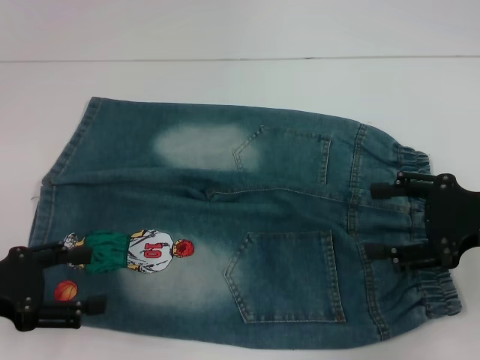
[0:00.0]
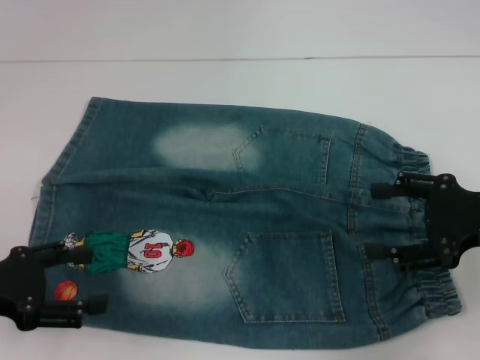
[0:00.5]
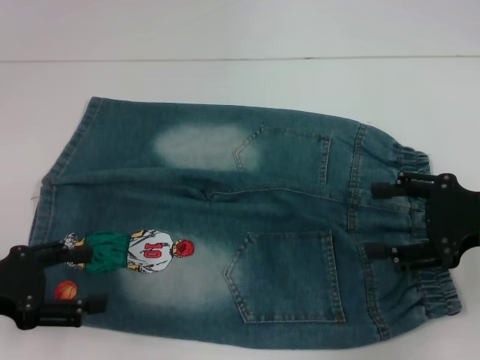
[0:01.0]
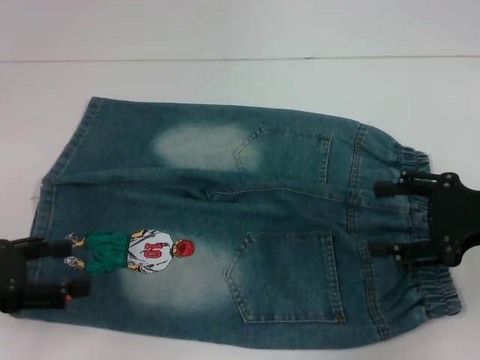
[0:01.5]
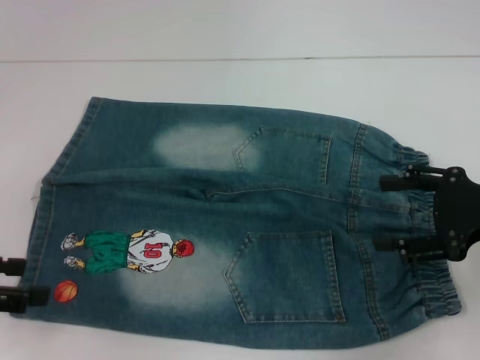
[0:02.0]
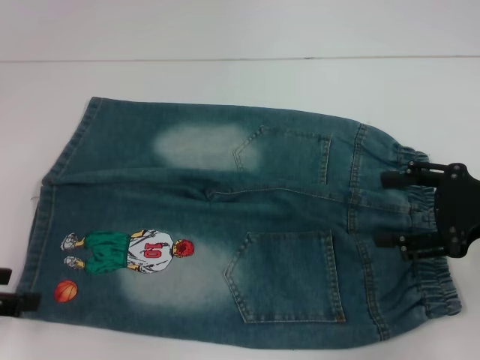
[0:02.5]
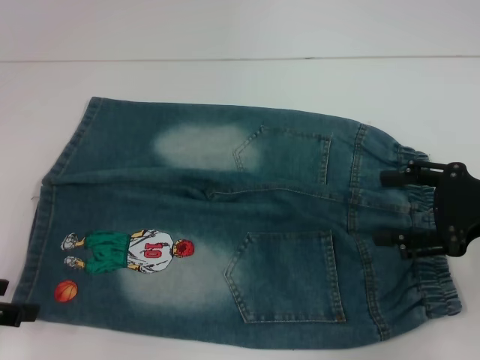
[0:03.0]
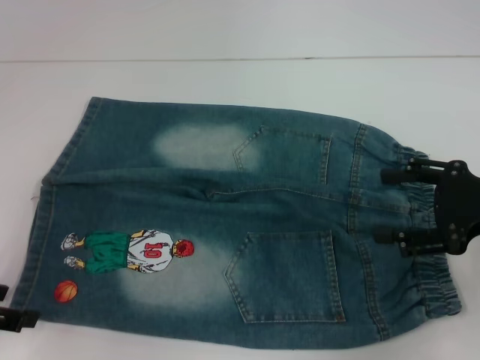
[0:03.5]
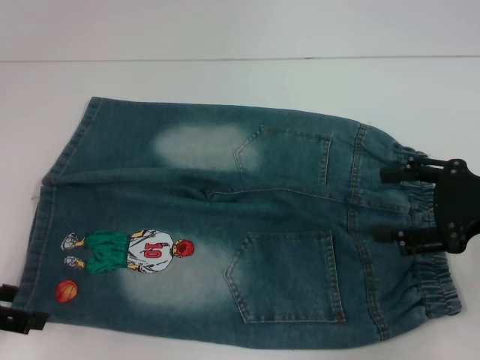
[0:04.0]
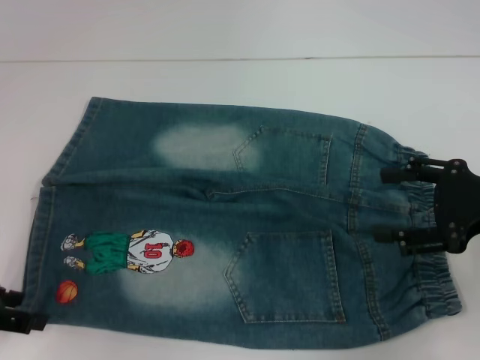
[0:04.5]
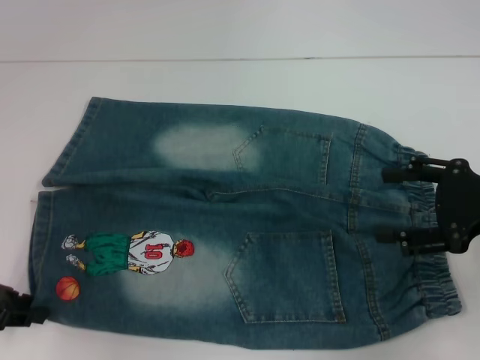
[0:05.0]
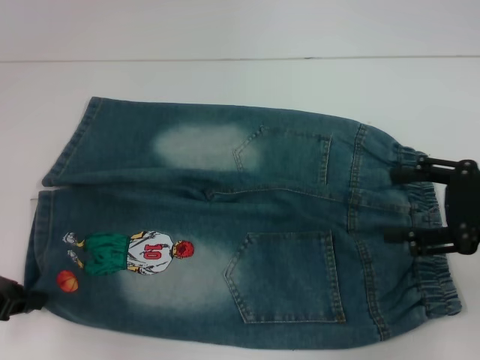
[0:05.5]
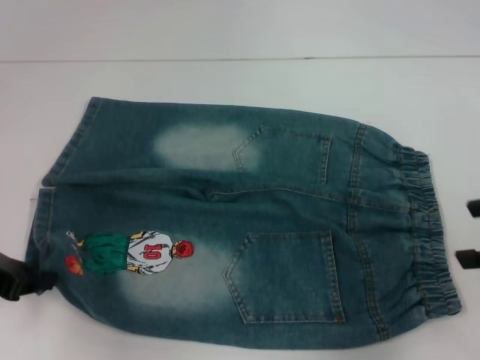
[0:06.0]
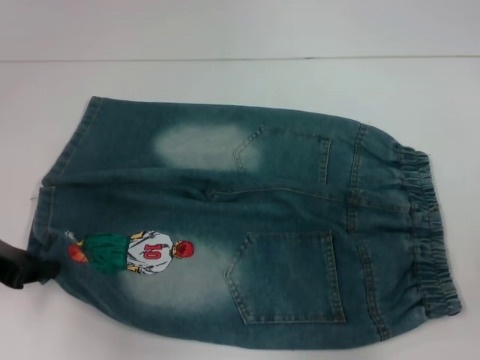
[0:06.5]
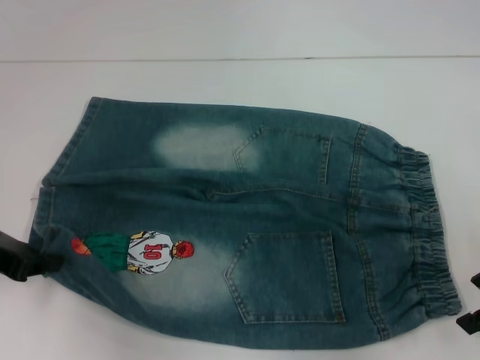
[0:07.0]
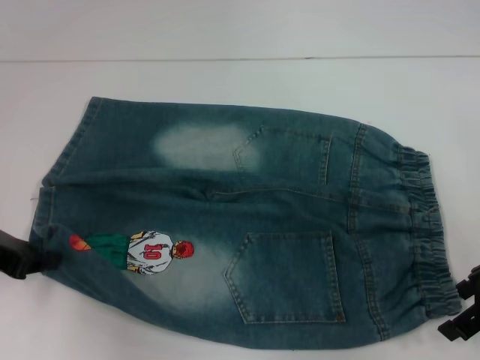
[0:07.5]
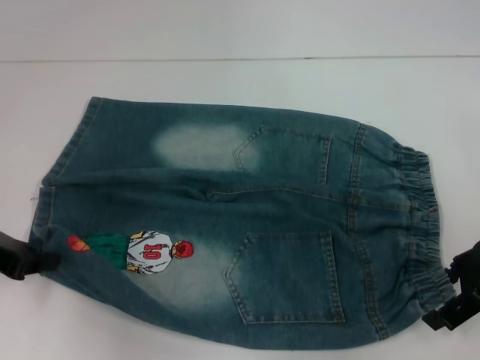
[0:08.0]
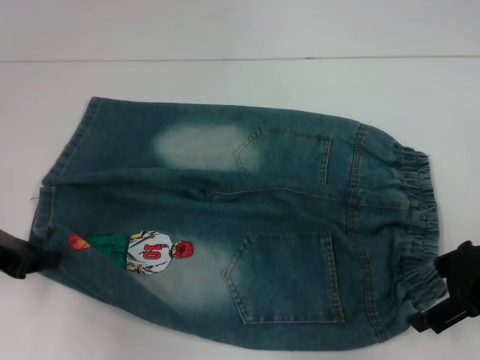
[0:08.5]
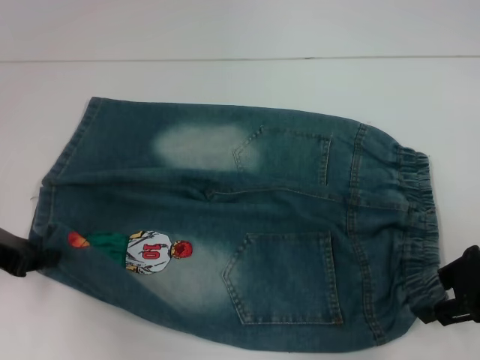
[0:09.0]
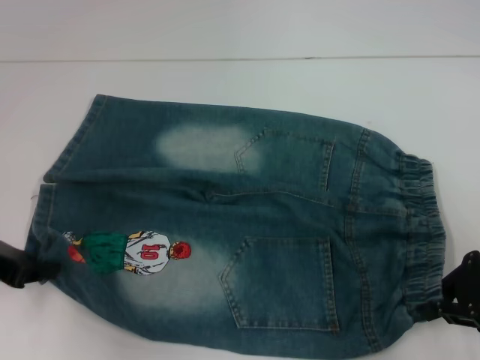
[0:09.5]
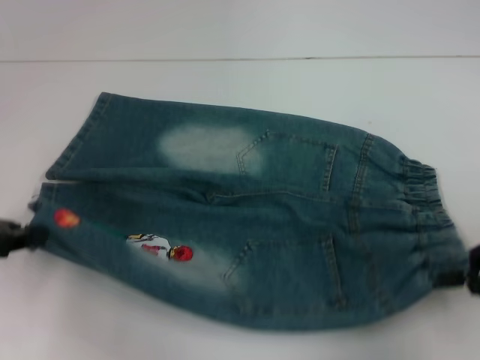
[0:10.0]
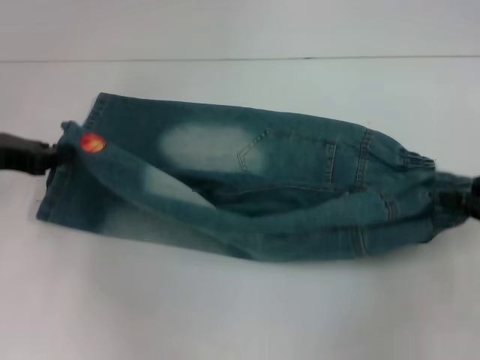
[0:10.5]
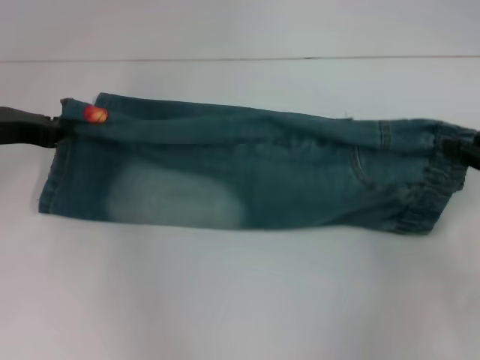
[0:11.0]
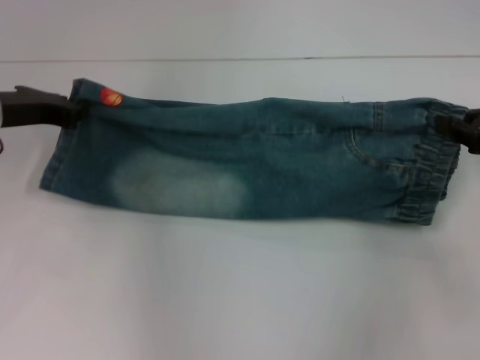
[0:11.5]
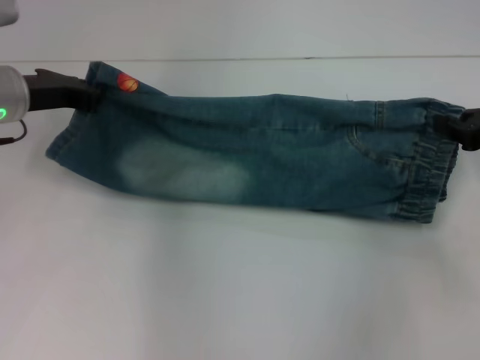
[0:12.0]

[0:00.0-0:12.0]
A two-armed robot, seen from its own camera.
Step, 0:00.0 to 0:04.5: Grab the lower left pant leg with your left hand.
Step, 0:05.0 to 0:09.0: Grab the lower right pant leg with your right hand.
0:00.0 to 0:02.0: The left gripper shifts by roughly 5 cm.
0:02.0 to 0:04.0: There are only small adjustments of the grippers.
0:04.0 to 0:06.0: The right gripper ends up about 5 cm from where it was. The left gripper closes.
0:06.0 to 0:08.0: The right gripper shifts some 5 cm to the left.
0:08.0 to 0:10.0: The right gripper shifts by some 5 cm, and closes up.
0:10.0 to 0:12.0: The left gripper travels forward and to the right by about 15 cm; the right gripper heads forward, covering roughly 10 cm.

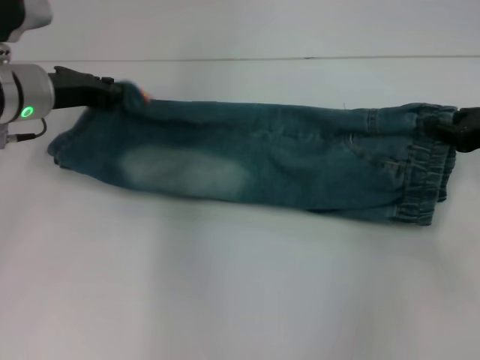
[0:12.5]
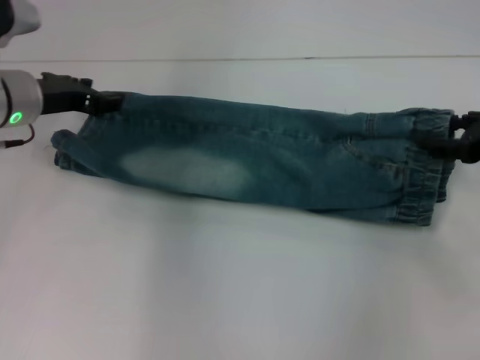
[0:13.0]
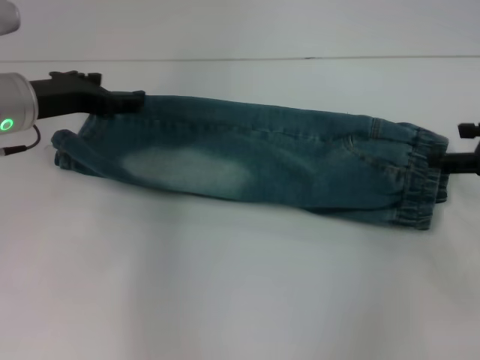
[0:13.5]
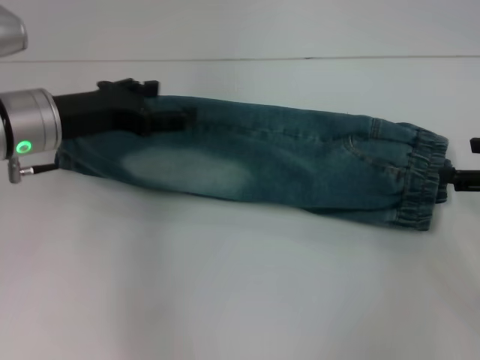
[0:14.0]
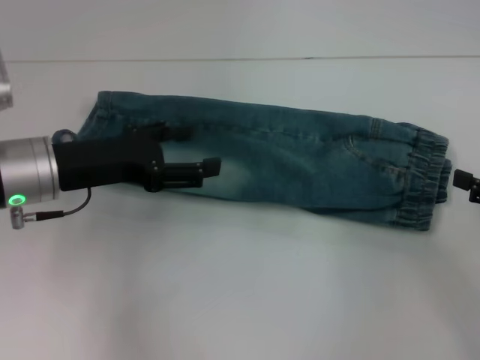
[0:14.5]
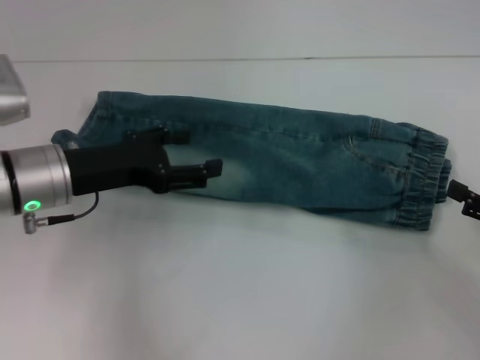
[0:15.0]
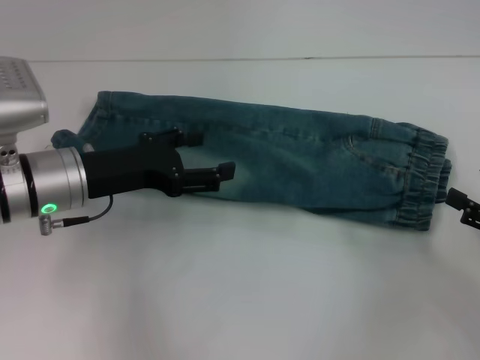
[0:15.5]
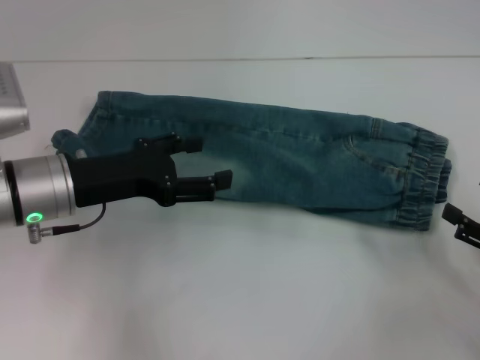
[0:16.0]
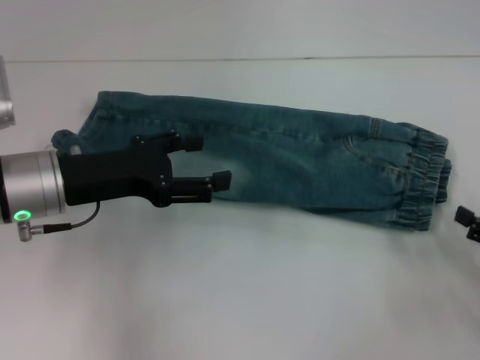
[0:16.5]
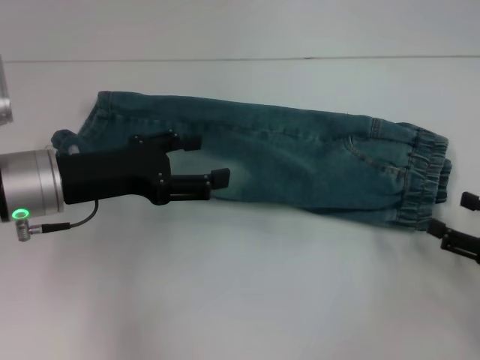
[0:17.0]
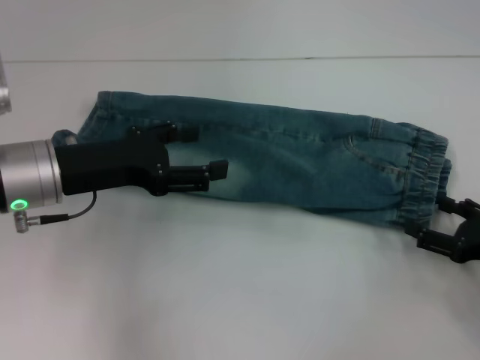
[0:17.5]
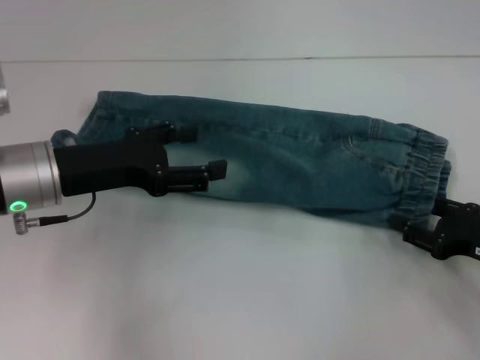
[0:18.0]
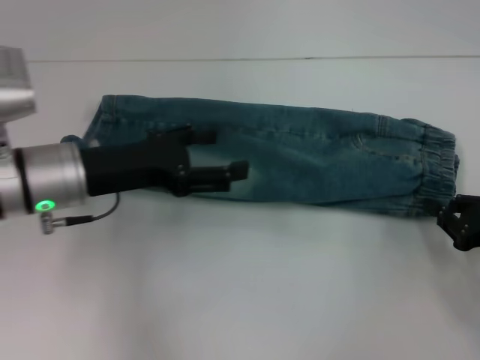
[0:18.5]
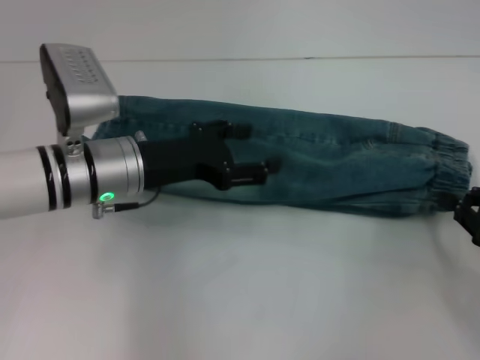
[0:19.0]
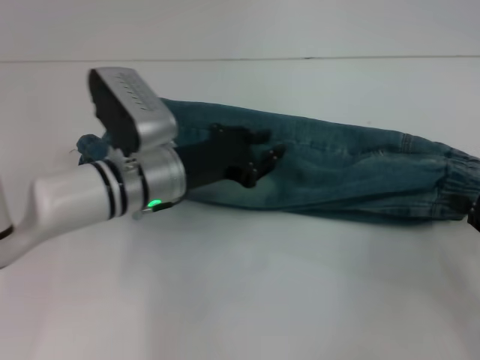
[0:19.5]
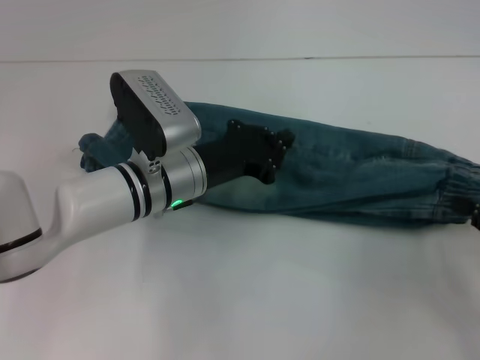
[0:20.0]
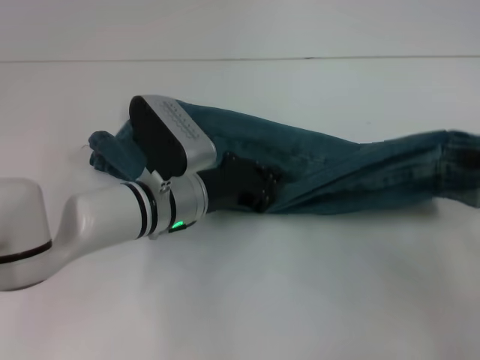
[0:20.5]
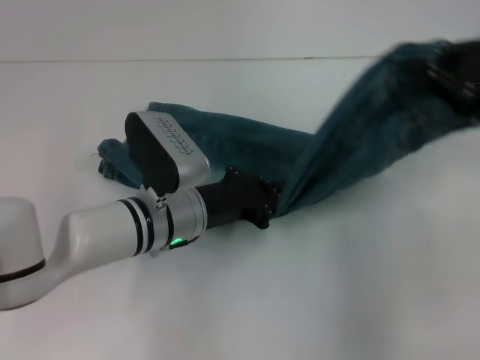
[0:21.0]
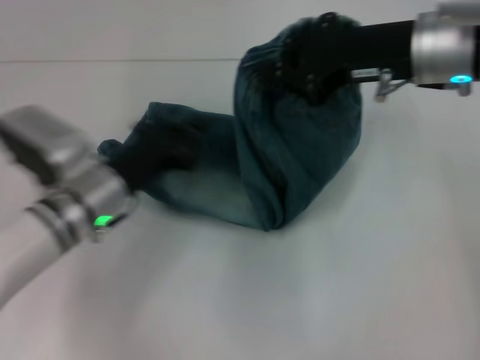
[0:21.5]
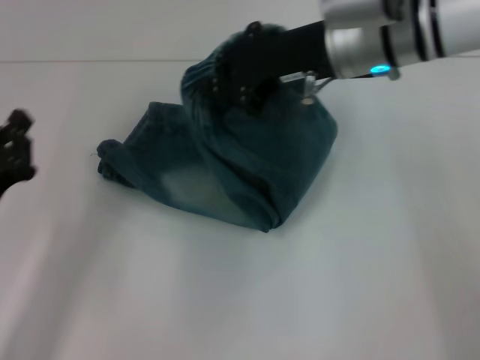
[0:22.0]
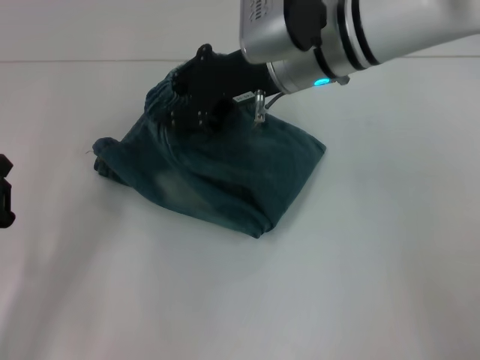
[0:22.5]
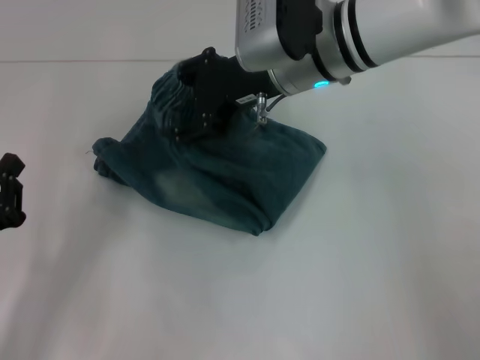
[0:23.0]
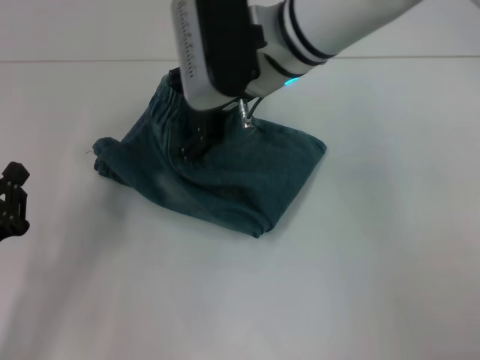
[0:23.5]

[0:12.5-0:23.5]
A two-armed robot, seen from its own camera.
Step, 0:14.0 to 0:18.0: Grab the waistband with your right hand.
Step, 0:18.5 to 0:21.0: Press the middle of the pants with your left hand.
0:12.5 to 0:14.5: Both grippers move backward, some 10 cm. The left gripper opens up; the right gripper opens up.
0:14.5 to 0:16.0: The right gripper goes some 5 cm downward.
0:16.0 to 0:18.0: The right gripper shifts by approximately 5 cm.
0:18.0 to 0:20.0: The right gripper heads upward, covering about 5 cm, and closes up, while the left gripper travels to the right and downward by some 15 cm, and closes.
0:20.0 to 0:21.5: The left gripper shifts approximately 5 cm to the left; the right gripper travels to the left, forward and upward by about 25 cm.
0:21.5 to 0:23.5: The left gripper moves to the left and backward, some 15 cm; the right gripper travels to the left by approximately 15 cm, and opens.

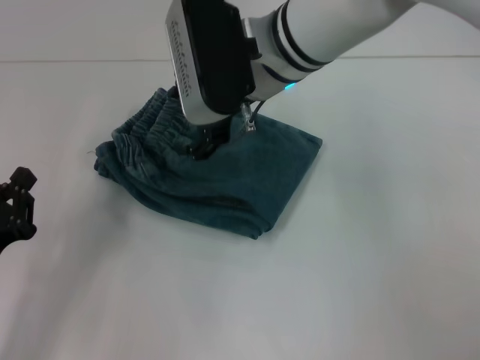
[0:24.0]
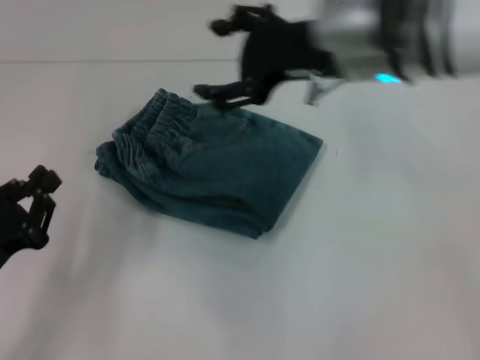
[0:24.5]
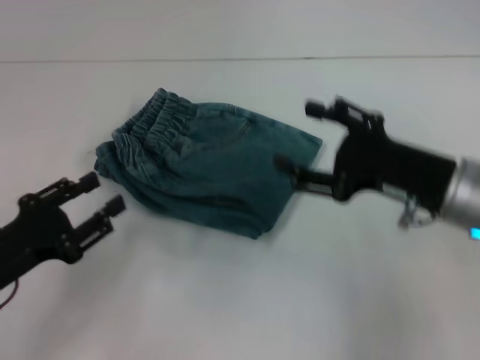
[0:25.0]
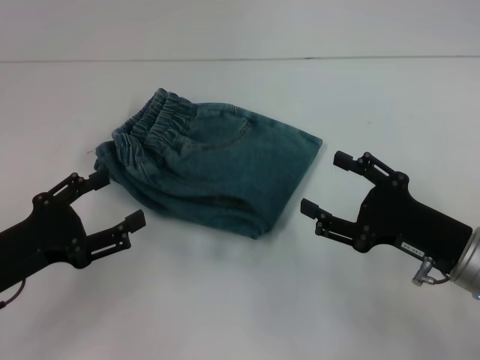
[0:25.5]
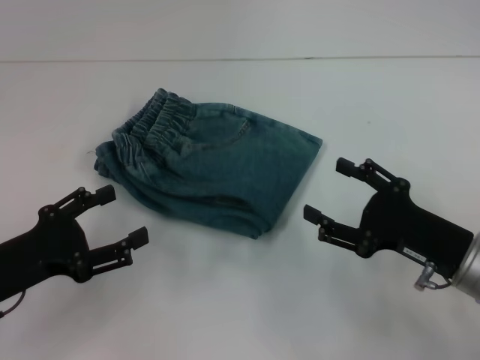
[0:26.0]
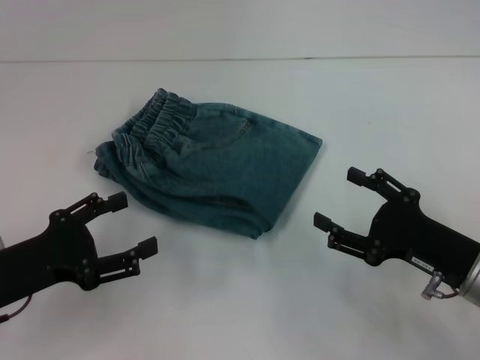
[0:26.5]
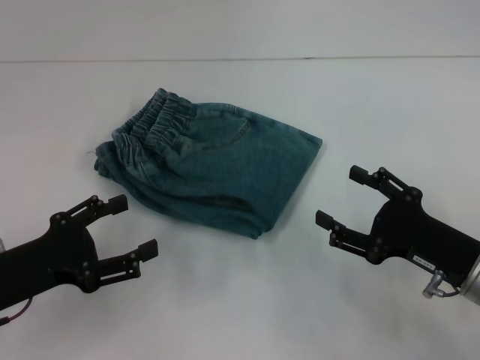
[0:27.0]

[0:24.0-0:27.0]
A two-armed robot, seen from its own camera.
0:24.0 to 0:25.5: The right gripper is displaced to the right, backward and downward by some 30 cm. The left gripper opens its fingers.
0:25.5 to 0:27.0: The grippers move only a little.
